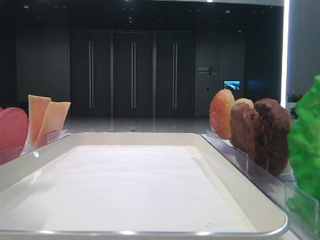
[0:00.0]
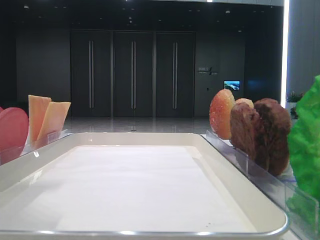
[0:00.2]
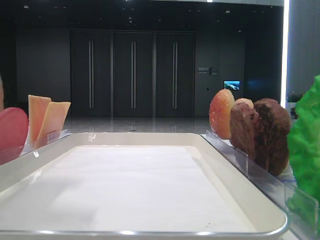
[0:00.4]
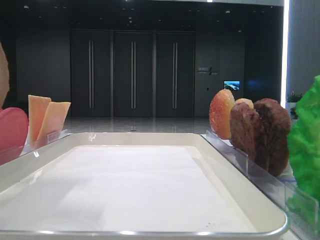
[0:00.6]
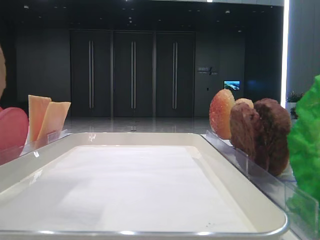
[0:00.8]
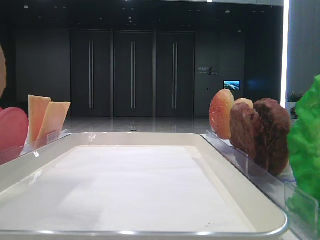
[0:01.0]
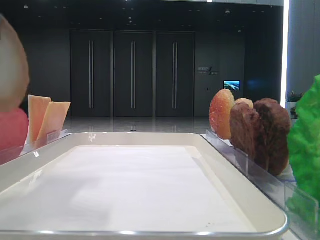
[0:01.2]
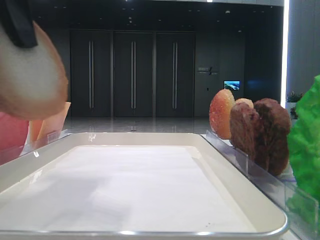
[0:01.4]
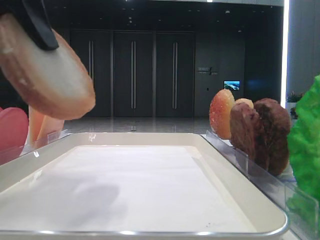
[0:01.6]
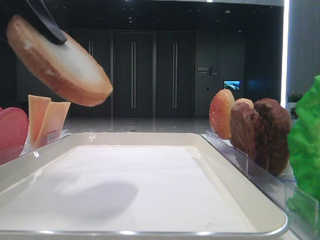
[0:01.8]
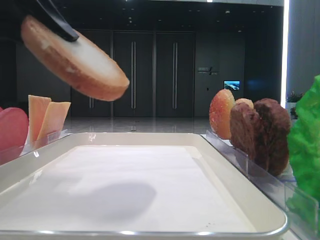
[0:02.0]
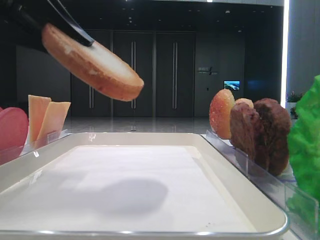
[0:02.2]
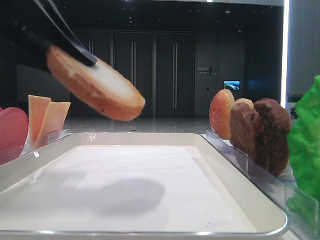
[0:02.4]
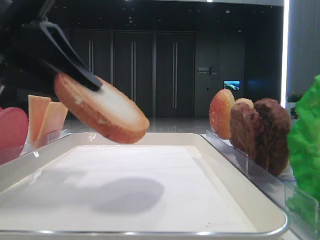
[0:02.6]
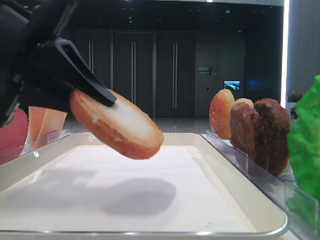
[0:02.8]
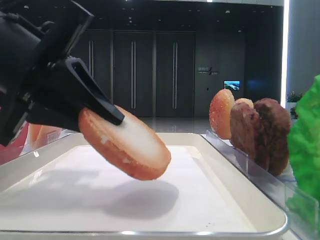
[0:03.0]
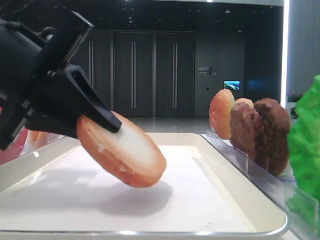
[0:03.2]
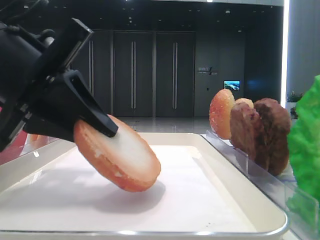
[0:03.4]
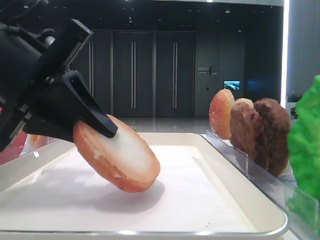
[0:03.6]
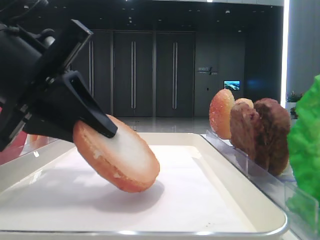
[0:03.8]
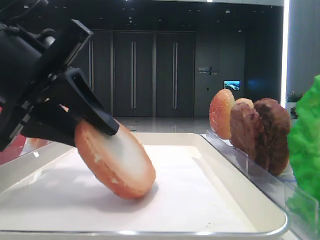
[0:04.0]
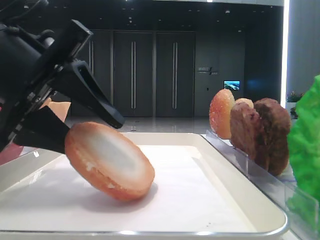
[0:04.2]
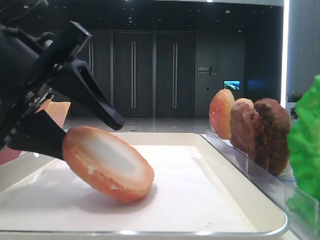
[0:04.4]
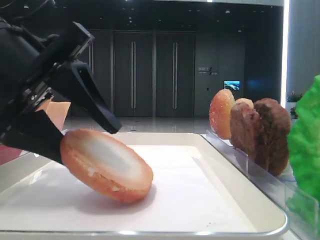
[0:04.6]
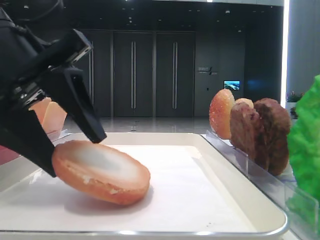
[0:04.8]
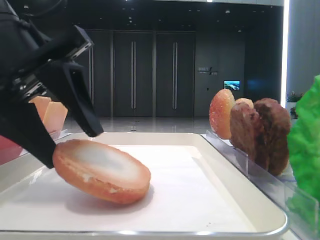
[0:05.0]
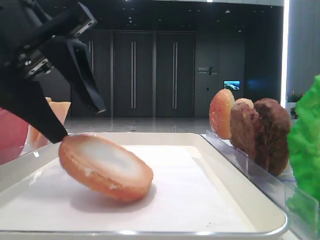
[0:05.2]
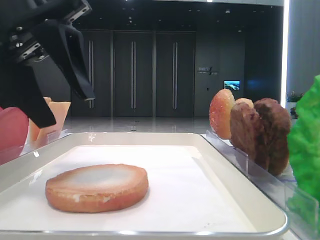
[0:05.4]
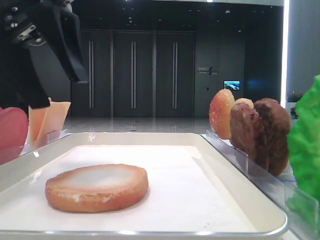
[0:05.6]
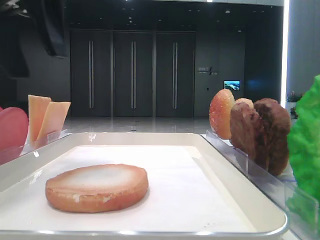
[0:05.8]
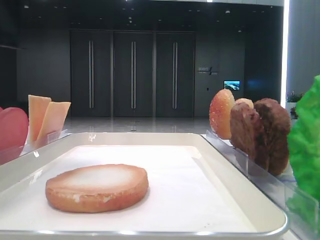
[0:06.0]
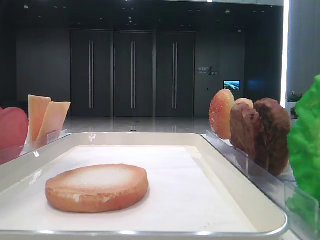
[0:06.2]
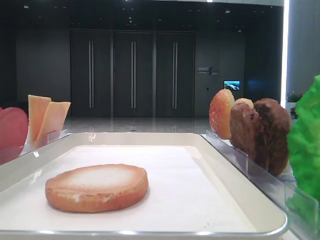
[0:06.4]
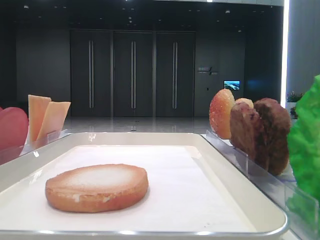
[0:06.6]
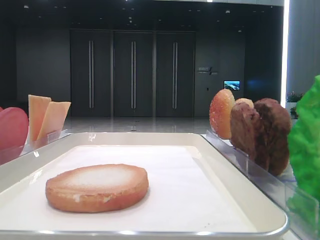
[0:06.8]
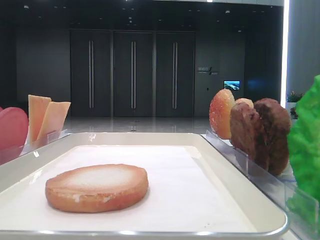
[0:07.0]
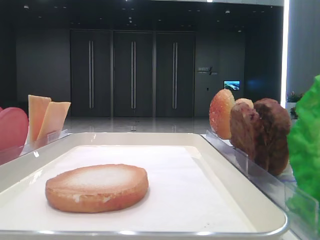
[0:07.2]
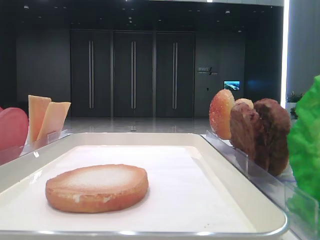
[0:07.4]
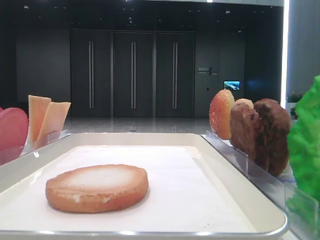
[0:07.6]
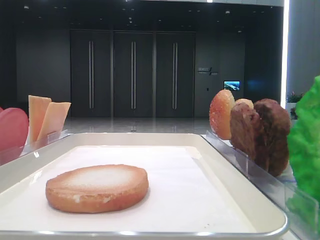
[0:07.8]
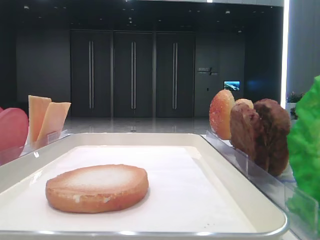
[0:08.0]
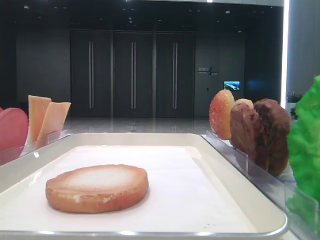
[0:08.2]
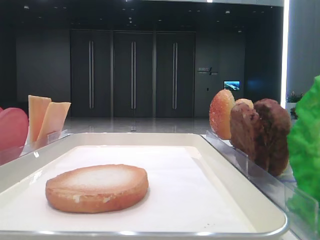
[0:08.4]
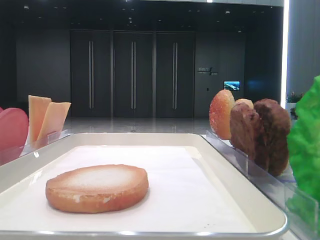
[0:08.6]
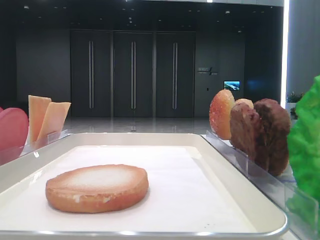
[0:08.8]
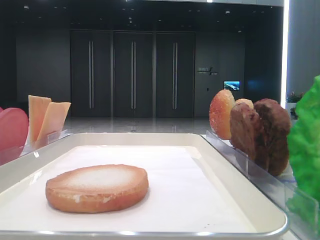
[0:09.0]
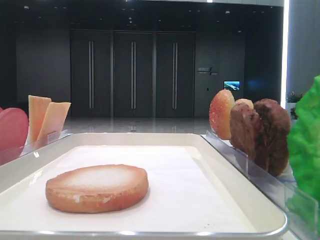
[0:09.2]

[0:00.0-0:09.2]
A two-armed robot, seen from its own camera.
Step, 0:00.0 to 0:05.2: Place the bread on the tray with the left hand.
0:00.0 to 0:01.6: The left gripper changes place by some 5 cm.
0:01.6 to 0:03.0: The left gripper travels downward by roughly 10 cm.
0:03.0 to 0:04.6: The left gripper opens up.
0:04.6 to 0:06.2: The left gripper shifts roughly 15 cm upward.
0:06.2 to 0:07.6: The left gripper is displaced backward and to the left by roughly 25 cm.

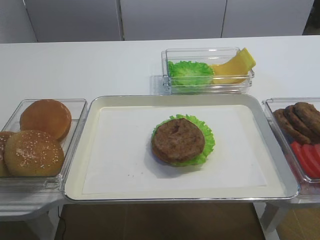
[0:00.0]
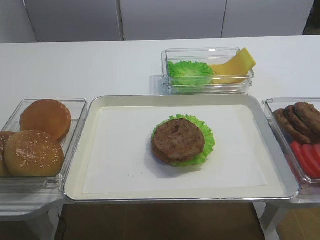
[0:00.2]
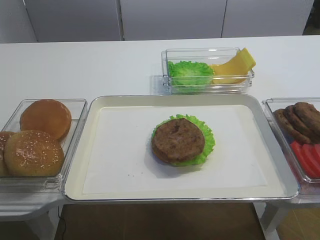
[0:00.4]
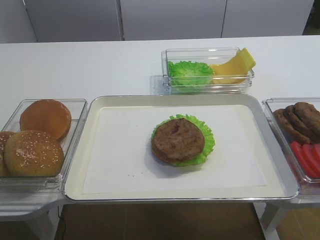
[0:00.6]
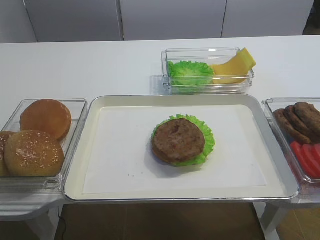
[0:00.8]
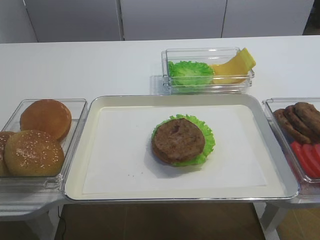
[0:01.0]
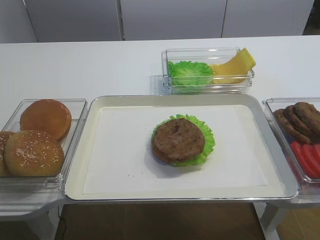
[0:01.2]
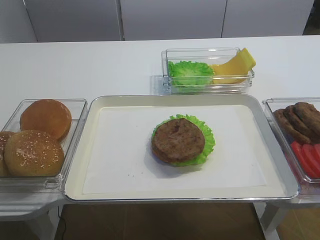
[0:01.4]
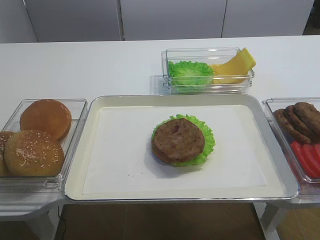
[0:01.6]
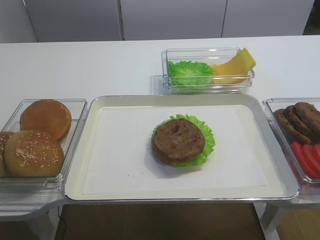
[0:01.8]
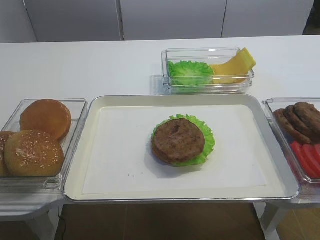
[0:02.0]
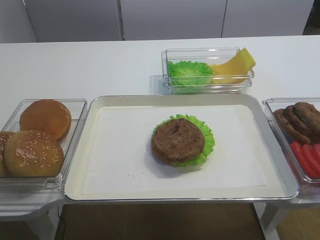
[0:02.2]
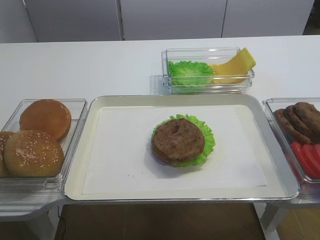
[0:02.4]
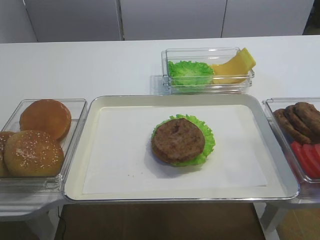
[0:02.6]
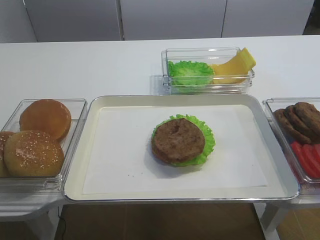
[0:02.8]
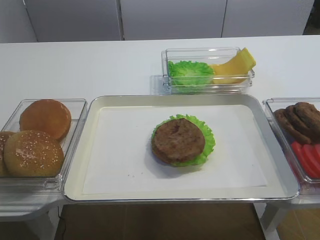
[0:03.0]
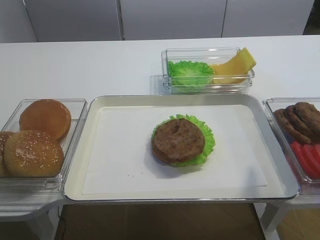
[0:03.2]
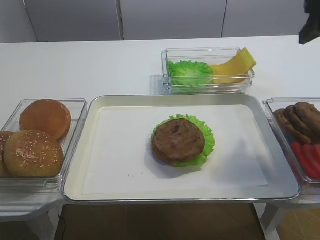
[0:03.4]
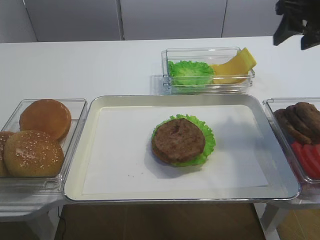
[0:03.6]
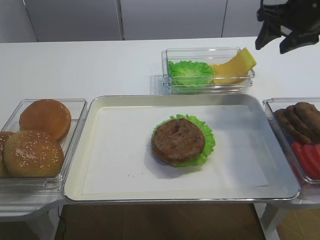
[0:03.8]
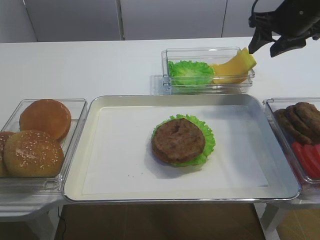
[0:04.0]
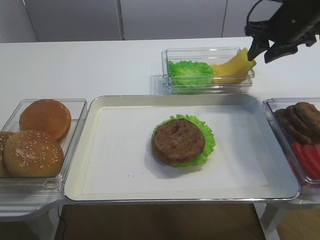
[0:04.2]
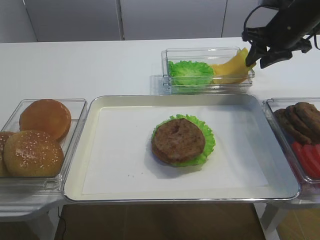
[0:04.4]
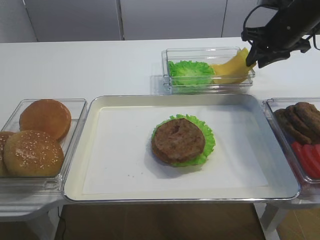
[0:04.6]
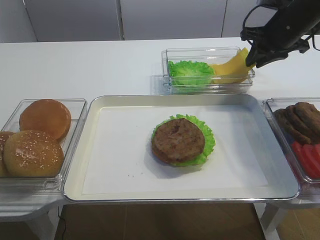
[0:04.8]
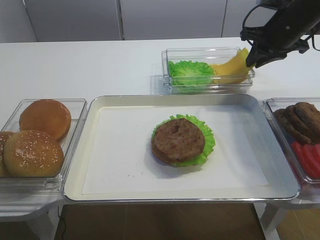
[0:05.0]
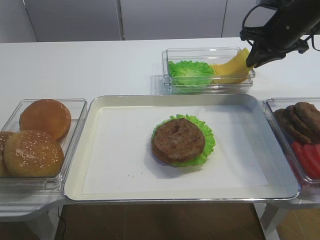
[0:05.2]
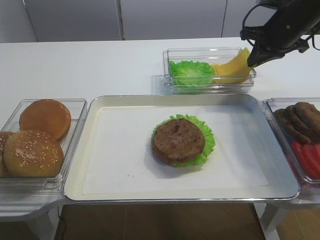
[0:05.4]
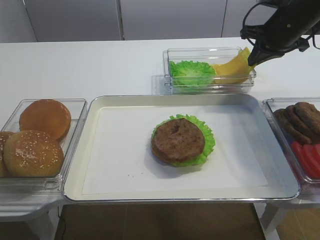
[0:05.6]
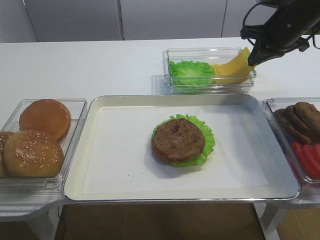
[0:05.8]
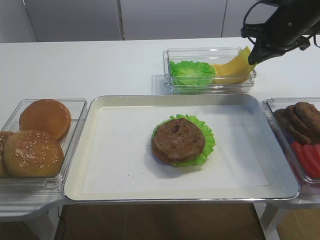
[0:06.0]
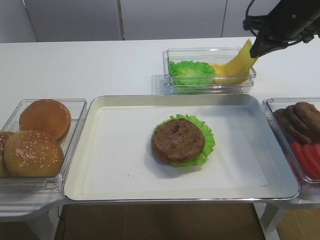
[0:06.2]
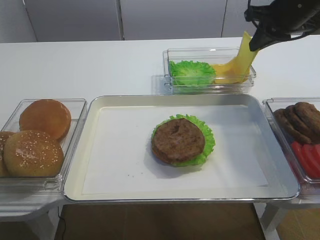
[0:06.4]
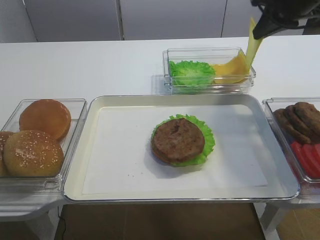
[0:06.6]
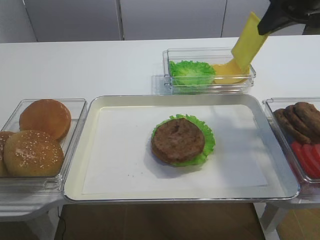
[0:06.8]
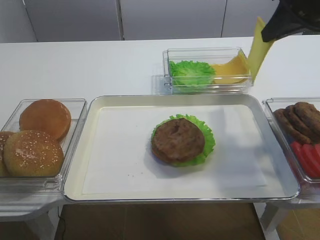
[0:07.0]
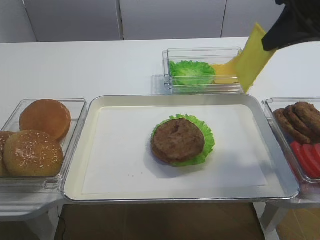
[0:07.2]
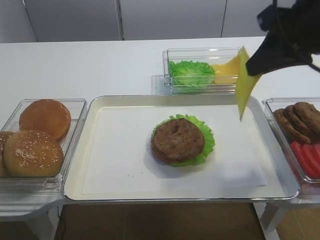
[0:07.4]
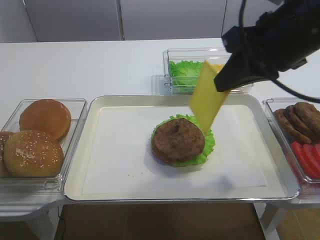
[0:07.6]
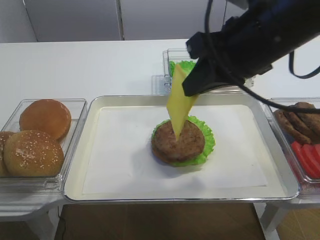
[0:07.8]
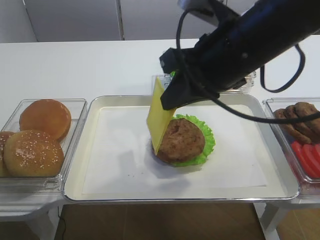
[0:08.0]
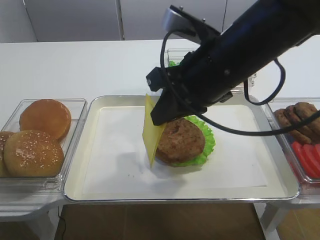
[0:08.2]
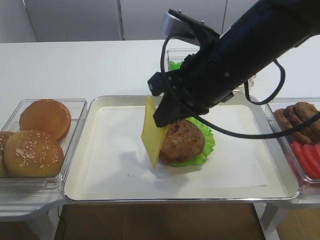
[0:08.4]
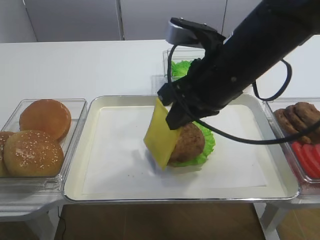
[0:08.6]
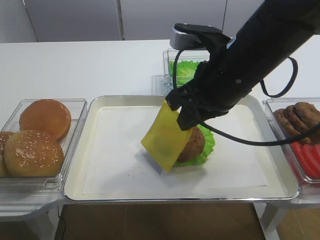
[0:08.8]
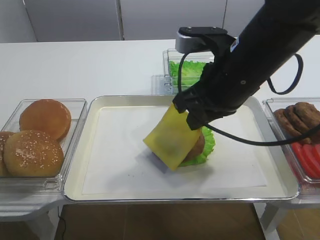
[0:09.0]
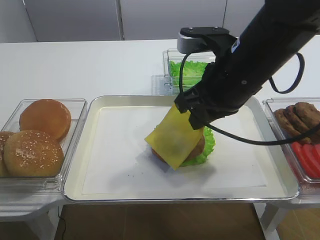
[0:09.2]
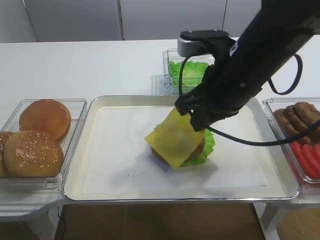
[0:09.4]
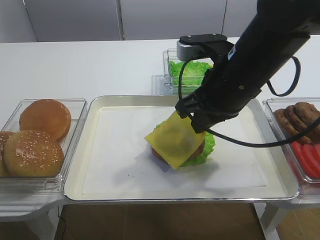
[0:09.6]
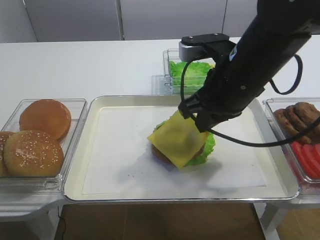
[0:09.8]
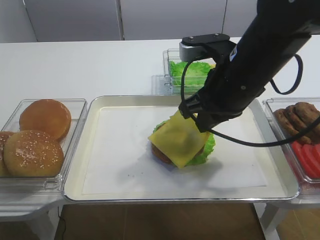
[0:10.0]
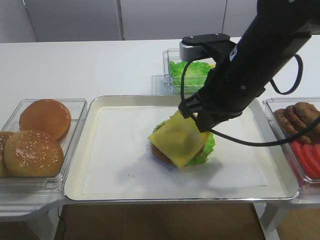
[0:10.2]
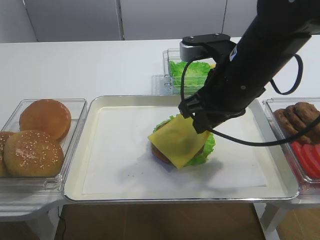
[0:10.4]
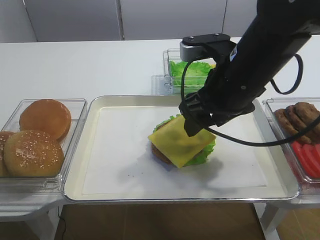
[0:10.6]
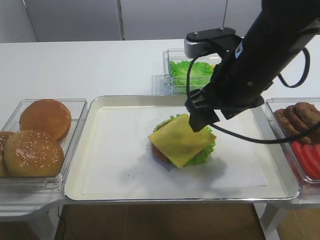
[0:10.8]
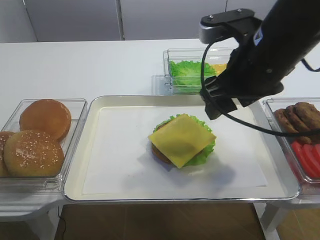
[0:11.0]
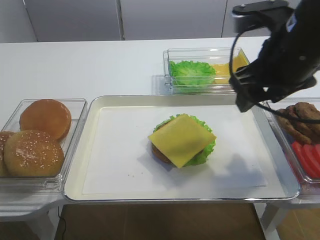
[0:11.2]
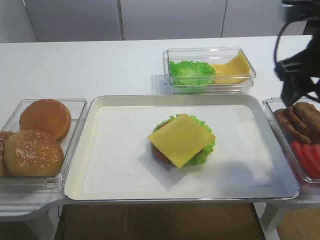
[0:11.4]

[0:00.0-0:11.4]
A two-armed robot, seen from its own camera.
Step, 0:00.0 to 0:06.4: Pick up the cheese slice with the right gripper.
Step, 0:06.6 to 0:10.8: Place the cheese slice on the cutlet with the right gripper.
0:02.8 to 0:04.2: The right gripper is displaced forward by roughly 35 cm.
0:04.2 to 0:05.6: The right gripper closes its fingers.
0:05.6 to 0:07.2: The right gripper is displaced backward and upward by some 15 cm.
0:07.2 to 0:08.6: The right gripper travels to the left and downward by approximately 15 cm.
0:08.6 to 0:10.0: The grippers move only a little.
0:10.0 to 0:11.4: The right gripper shifts approximately 10 cm to the right, and opens its fingers.

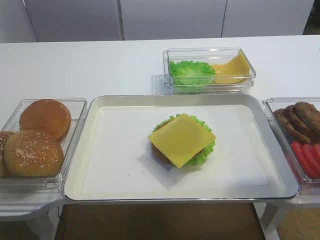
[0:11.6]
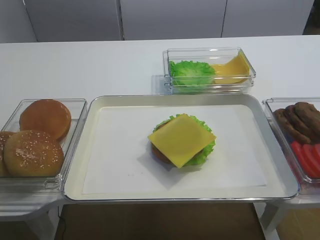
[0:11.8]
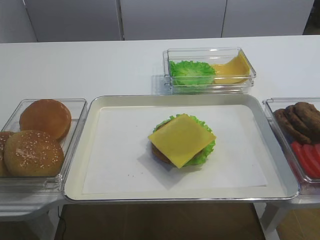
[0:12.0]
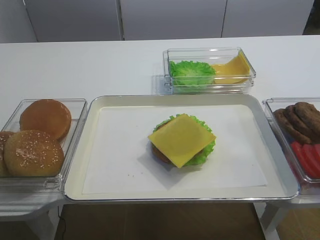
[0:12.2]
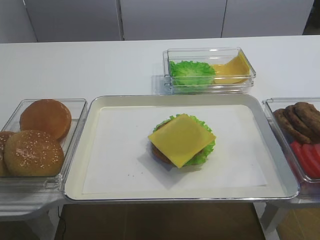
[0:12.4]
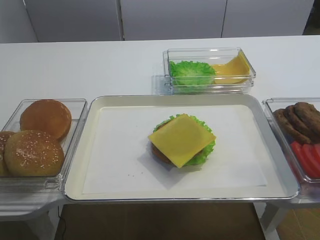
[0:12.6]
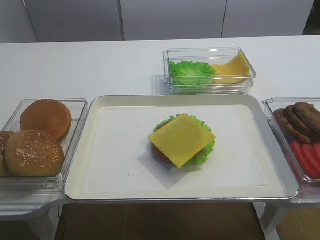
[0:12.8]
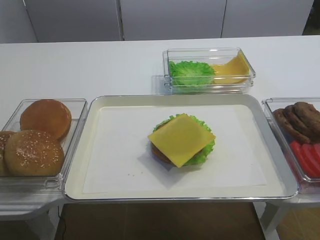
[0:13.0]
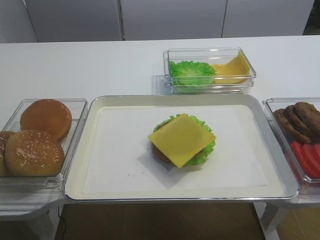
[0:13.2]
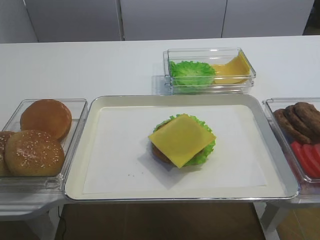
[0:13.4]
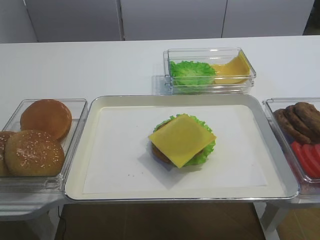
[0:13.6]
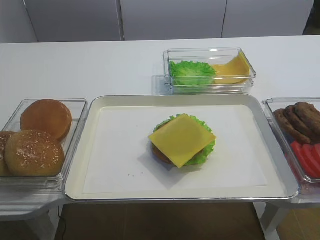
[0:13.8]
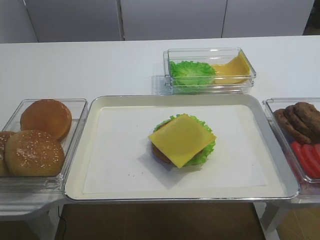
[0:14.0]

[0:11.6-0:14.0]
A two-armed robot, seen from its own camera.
0:11.6 to 0:12.8: The right gripper heads backward, covering some 25 cm.
